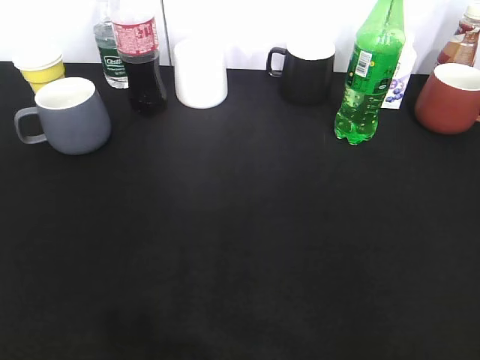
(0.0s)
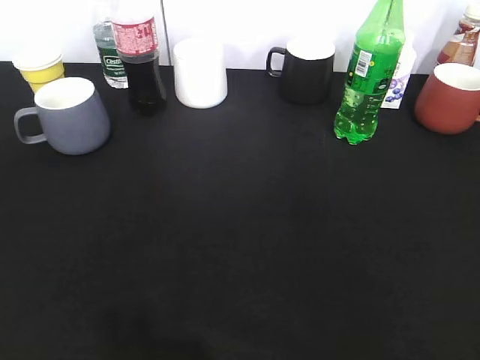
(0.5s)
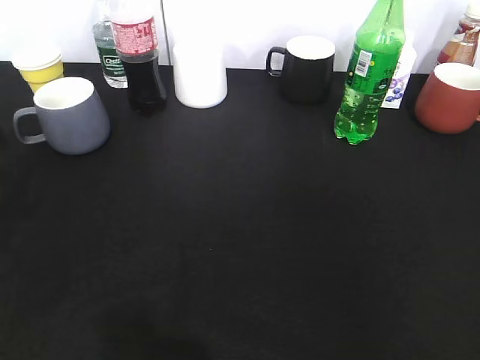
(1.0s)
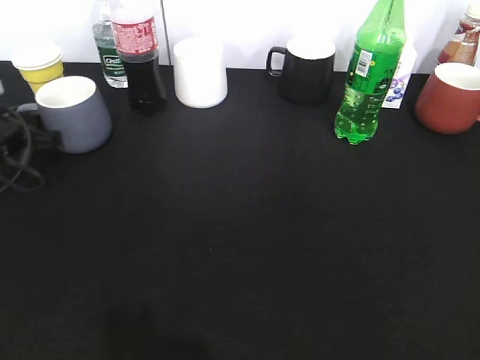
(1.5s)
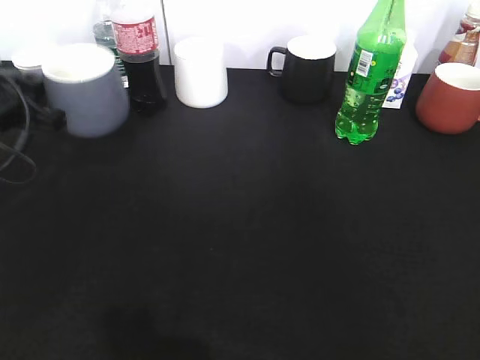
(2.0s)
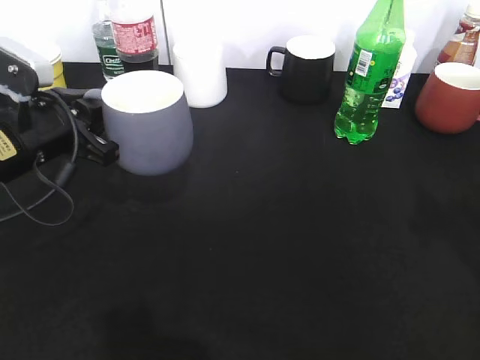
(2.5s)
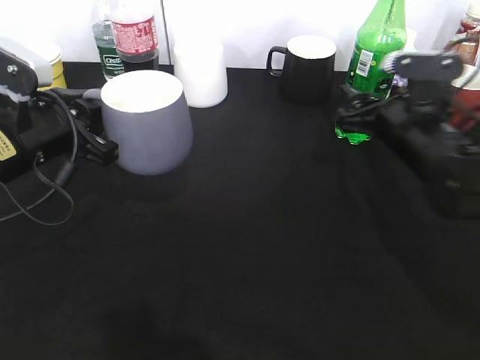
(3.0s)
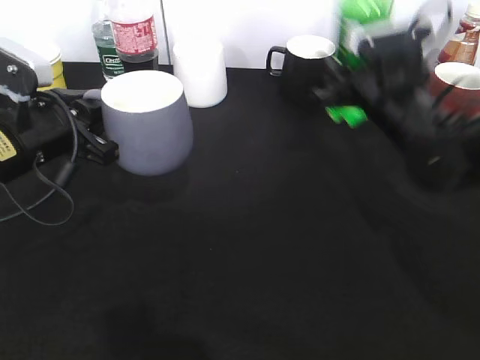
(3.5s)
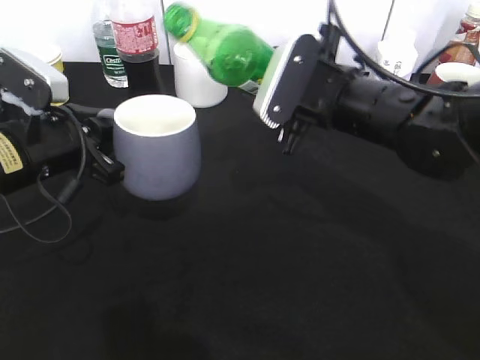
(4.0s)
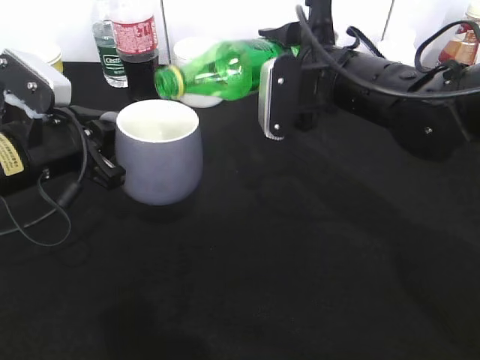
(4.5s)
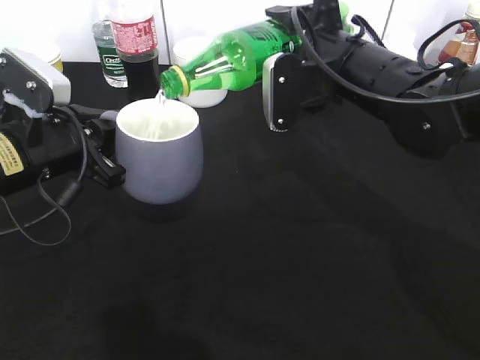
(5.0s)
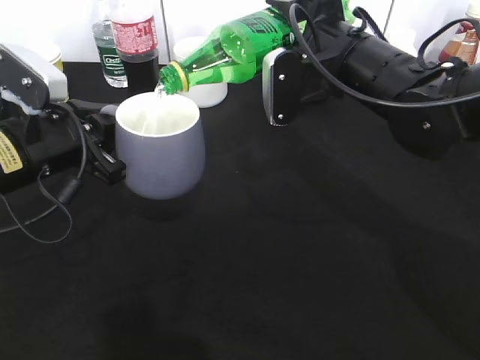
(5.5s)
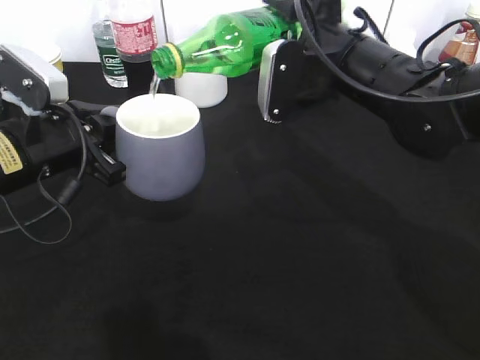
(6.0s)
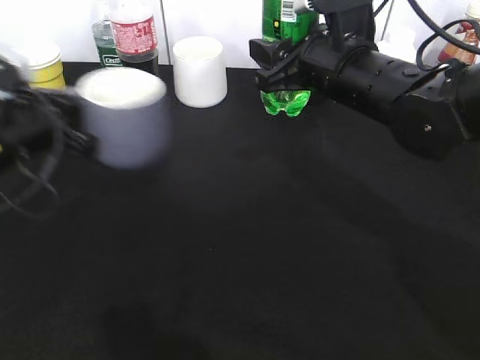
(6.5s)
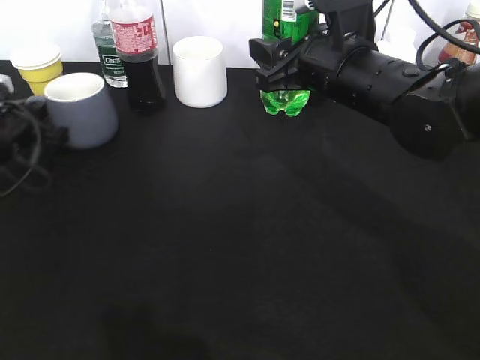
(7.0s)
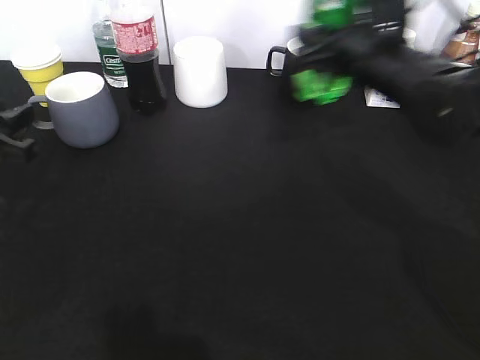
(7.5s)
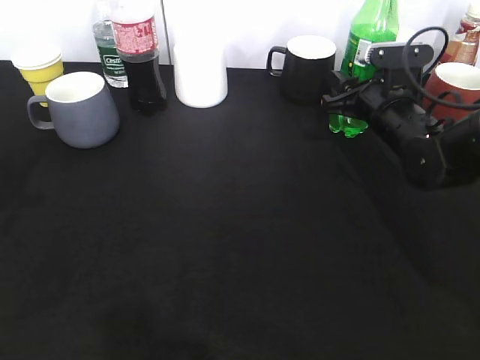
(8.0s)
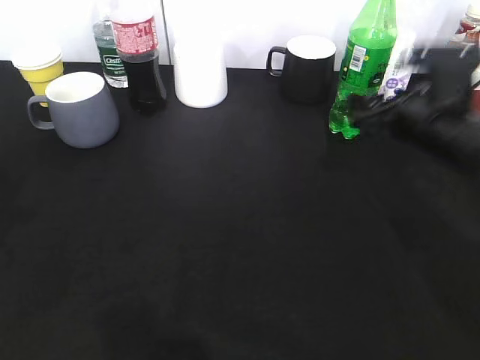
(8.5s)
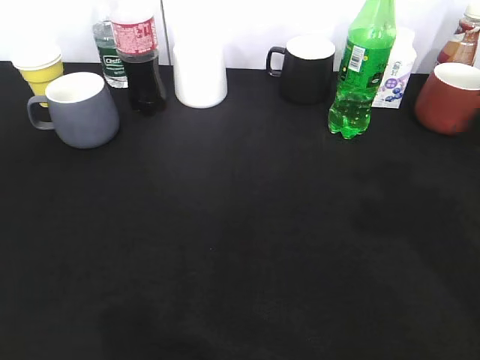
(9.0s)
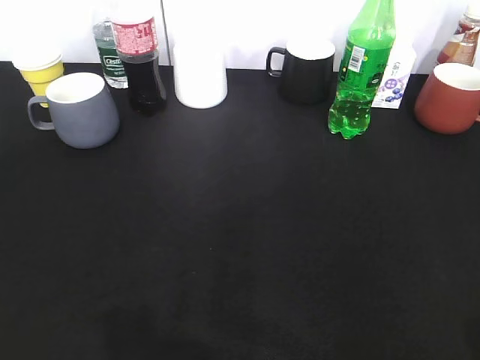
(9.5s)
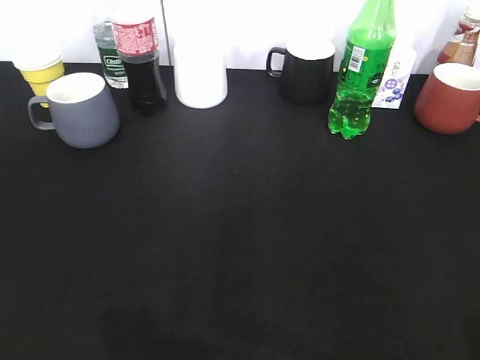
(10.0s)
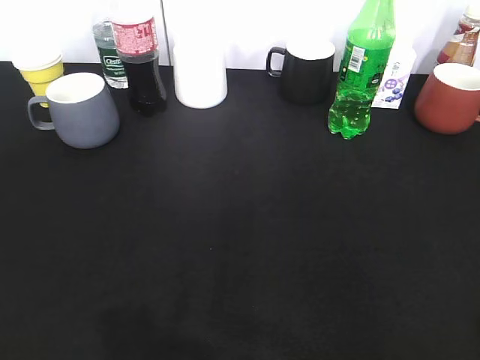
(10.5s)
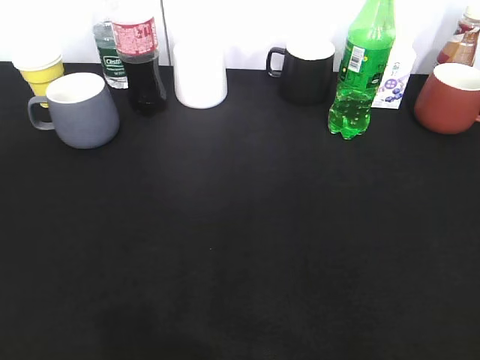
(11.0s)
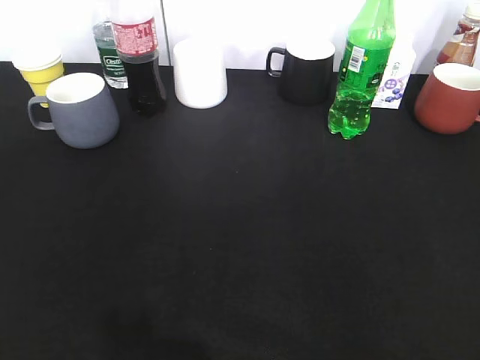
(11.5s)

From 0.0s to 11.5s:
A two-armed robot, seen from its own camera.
Step, from 0.0s to 1.5s: Grasp the grey cup with left gripper.
Step, from 2.0s to 2.5s: Lift the grey cup with left gripper.
Step, from 3.5s to 6.0s: Pour the sprite from bottle to cup with right gripper.
Step, from 6.5s to 8.0s: Place the sprite bottle on the table with right gripper.
From 0.0s to 2.0s: The left gripper is displaced forward by roughly 35 cm, and closes.
From 2.0s to 4.0s: The left gripper goes roughly 10 cm to the right and backward; the right gripper shifts about 40 cm forward and to the left, and closes its fingers.
From 6.0s to 7.5s: The left gripper travels to the left by approximately 10 cm, goes forward and returns, approximately 10 cm each way, and opens up, while the right gripper moves about 5 cm.
From 7.5s to 9.5s: The right gripper shifts about 40 cm backward and to the right, and opens. Meanwhile the left gripper is displaced backward and upward by about 25 cm.

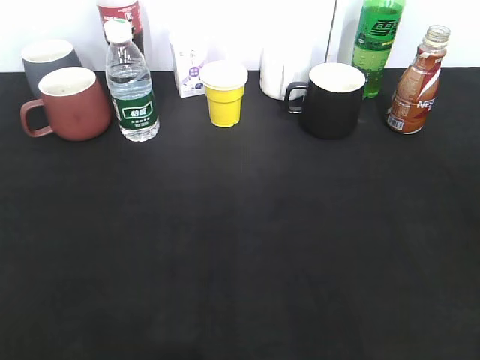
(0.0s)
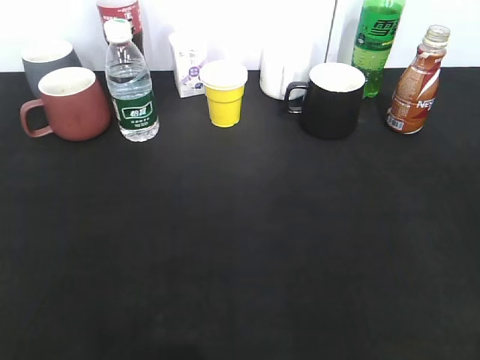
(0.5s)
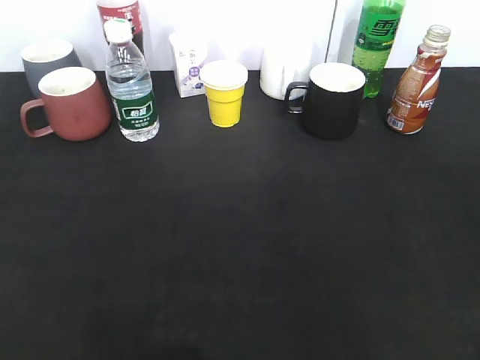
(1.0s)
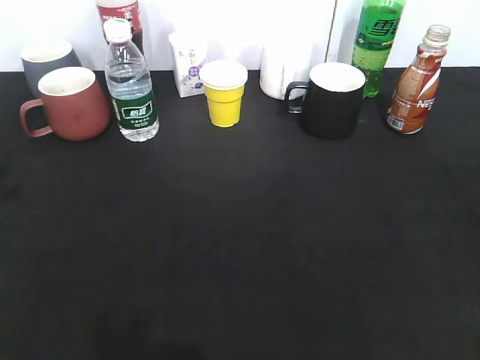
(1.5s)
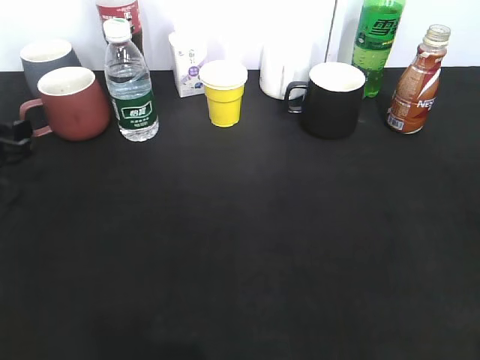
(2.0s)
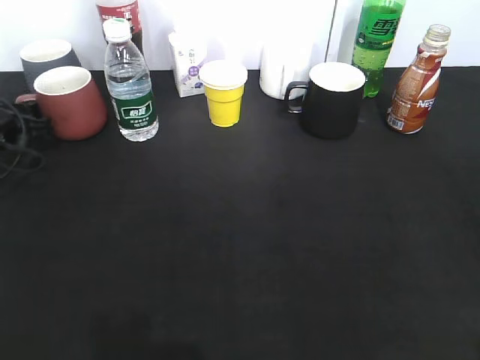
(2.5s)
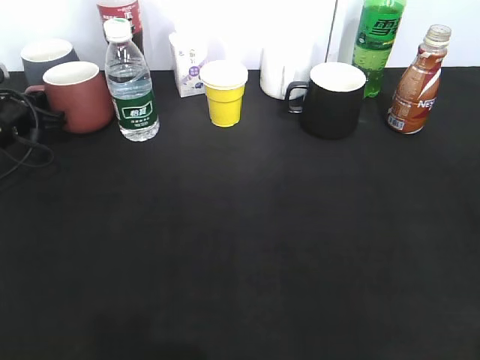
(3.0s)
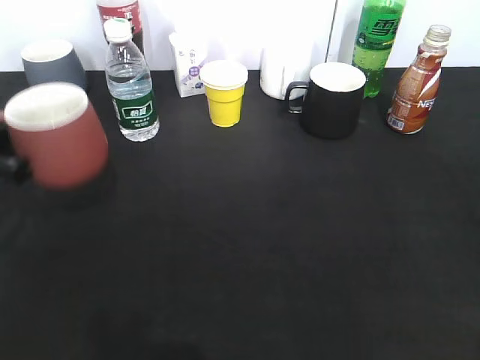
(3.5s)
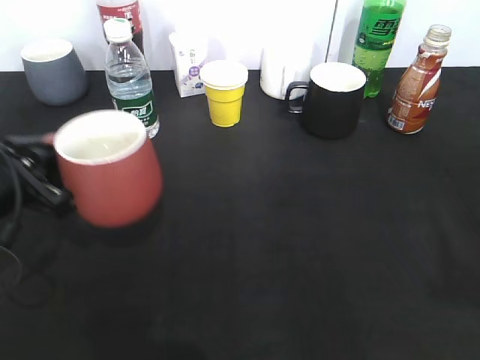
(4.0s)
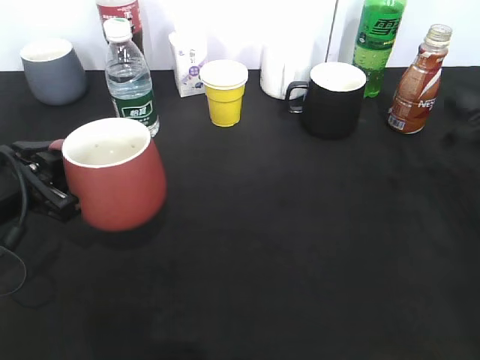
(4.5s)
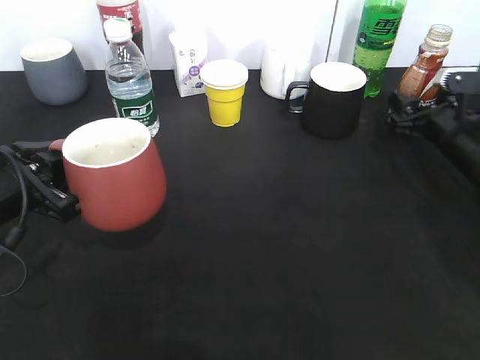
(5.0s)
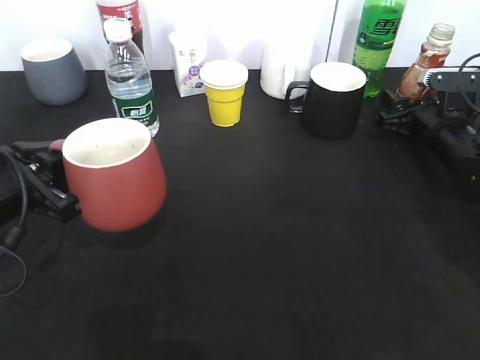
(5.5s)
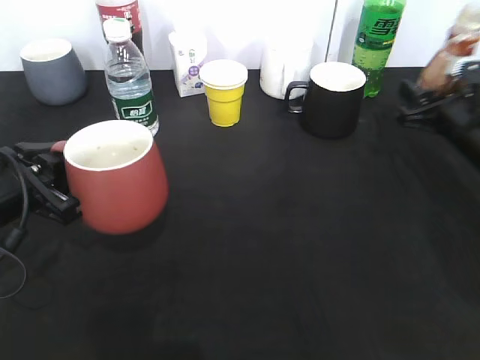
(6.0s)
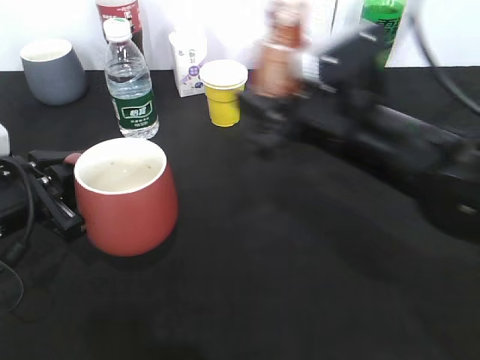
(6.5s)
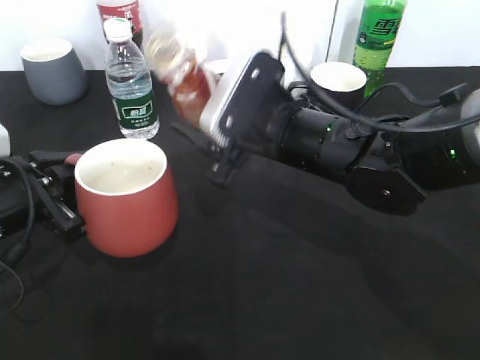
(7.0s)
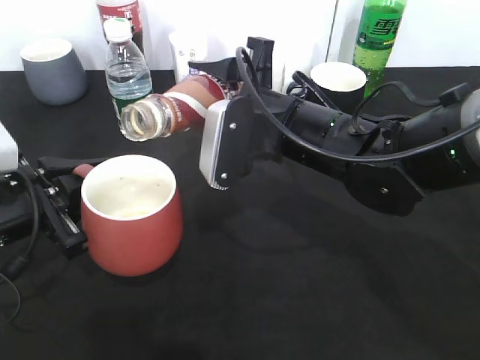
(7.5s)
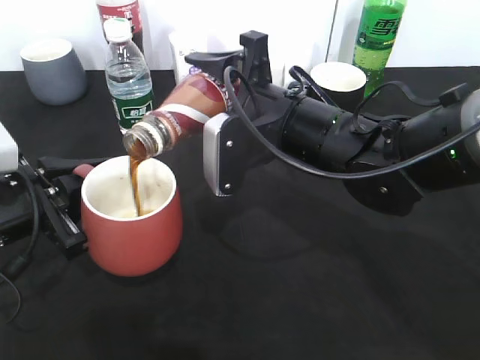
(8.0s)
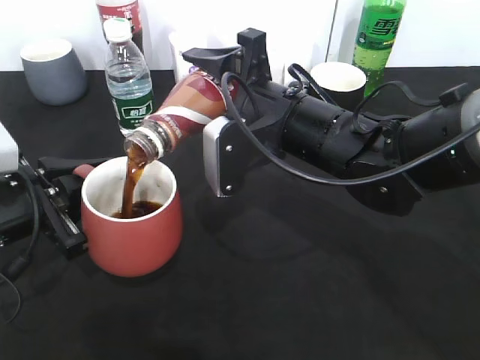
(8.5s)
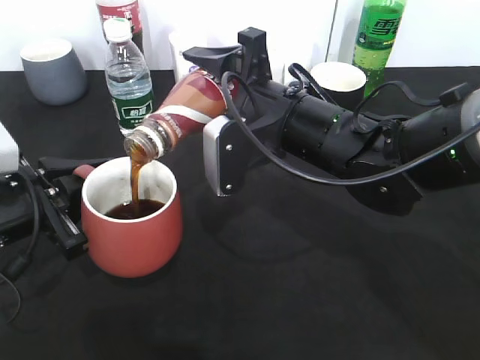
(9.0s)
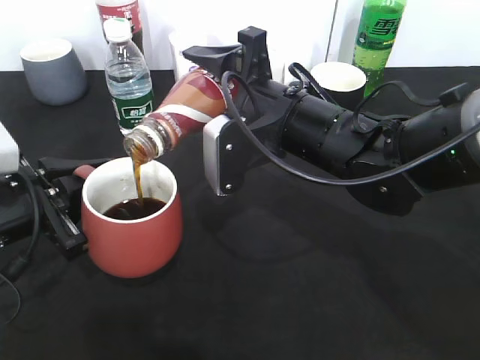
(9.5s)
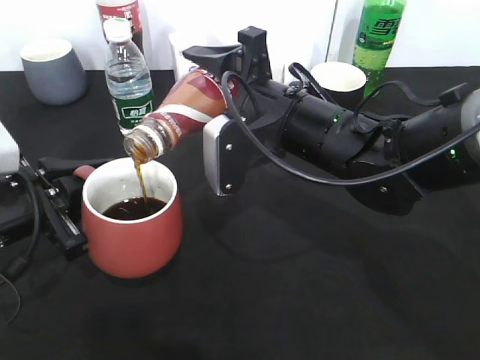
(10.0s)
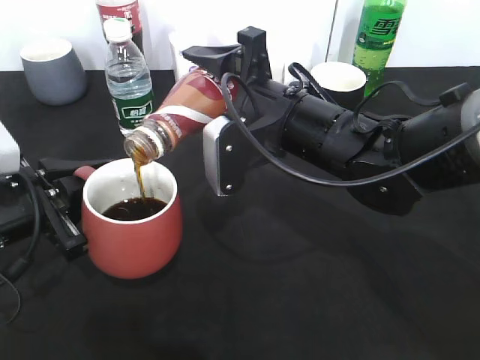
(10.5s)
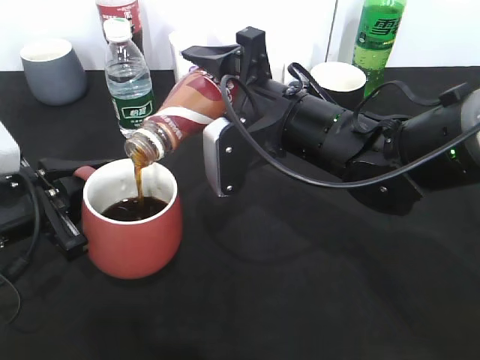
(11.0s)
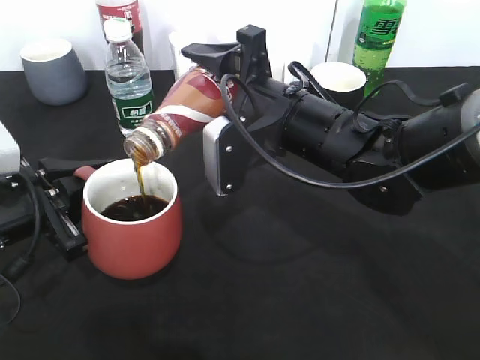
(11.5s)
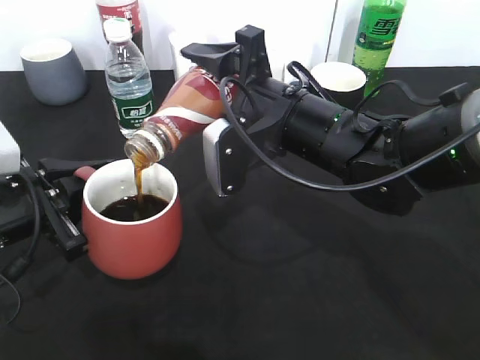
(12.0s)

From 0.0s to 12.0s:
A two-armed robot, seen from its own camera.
Step, from 3.0s to 3.5s: Lift the red cup with left gripper.
Step, from 4.0s to 5.5s: Grasp the bottle with coffee with right gripper.
From 0.0s to 2.0s: The left gripper heads forward and downward, covering some 35 cm.
From 2.0s to 4.0s: The left gripper moves backward and to the right, some 10 cm, and closes.
From 4.0s to 6.0s: The right gripper shifts some 35 cm forward and downward, and opens, then closes once more.
From 6.0s to 8.0s: The right gripper travels to the left by approximately 25 cm.
From 8.0s to 10.0s: Both grippers stay about where they are.
From 10.0s to 12.0s: Neither gripper changes place.

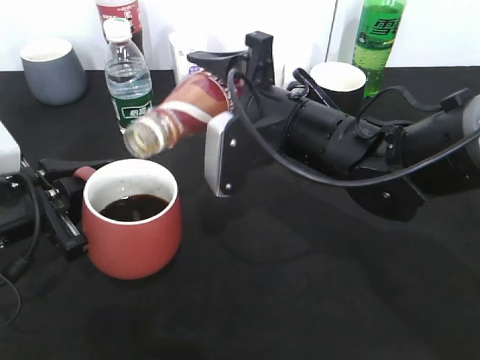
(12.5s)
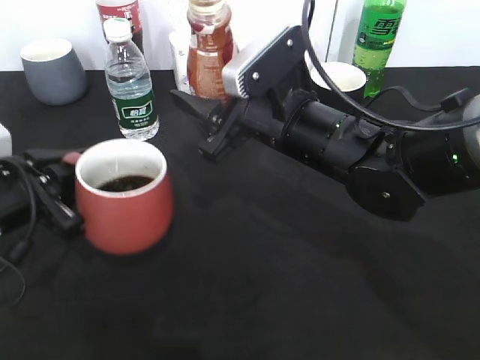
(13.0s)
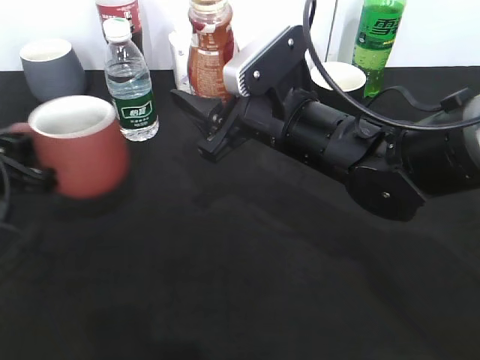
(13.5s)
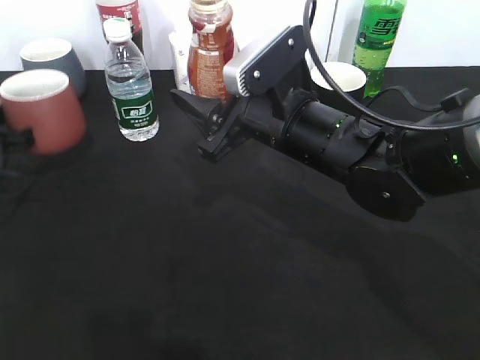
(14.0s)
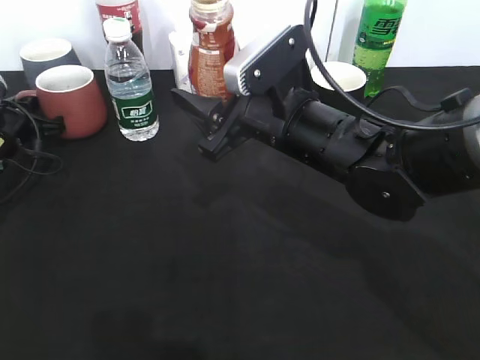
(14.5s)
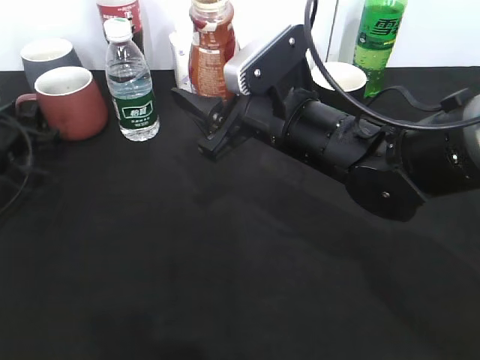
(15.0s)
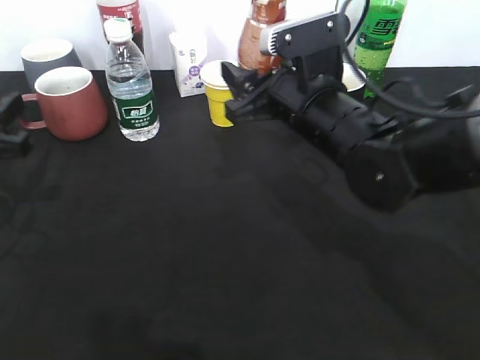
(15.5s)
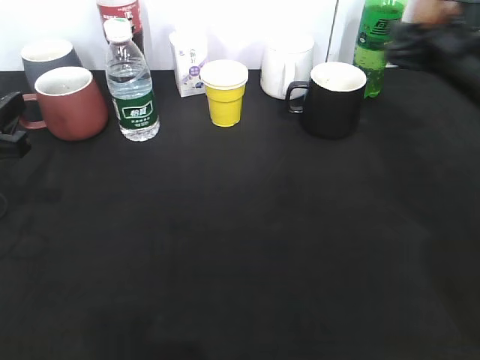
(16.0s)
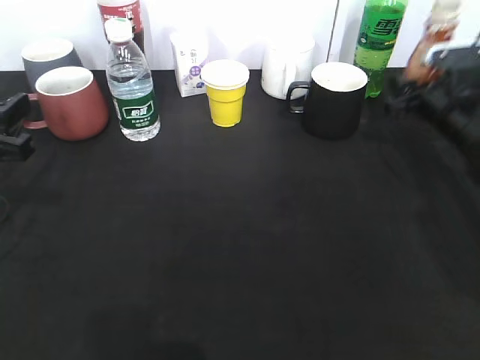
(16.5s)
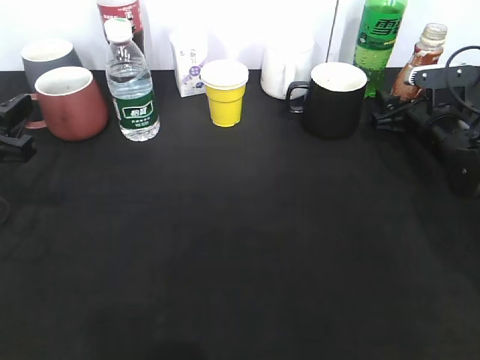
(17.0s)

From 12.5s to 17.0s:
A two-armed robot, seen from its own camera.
Step, from 13.0s to 15.0s: Place the red cup on the table with left gripper.
From 12.5s to 14.5s: The left gripper moves forward and to the left, approximately 20 cm.
From 14.5s to 17.0s: The left gripper heads backward and upward, covering some 15 cm, and opens its fingers; the right gripper shifts roughly 25 cm to the right, forward and downward, and opens up.
